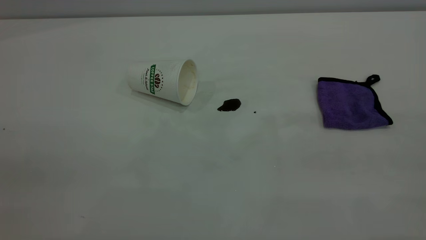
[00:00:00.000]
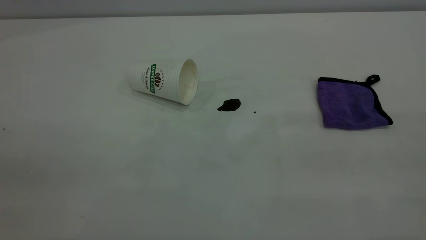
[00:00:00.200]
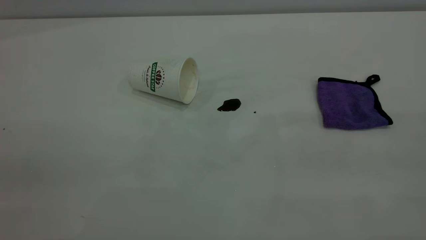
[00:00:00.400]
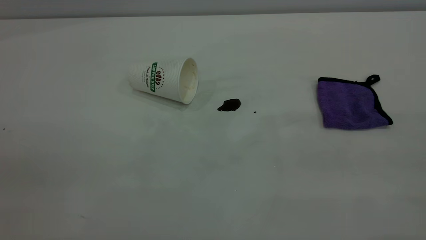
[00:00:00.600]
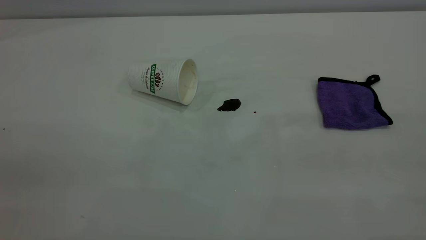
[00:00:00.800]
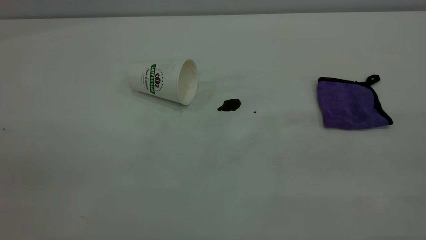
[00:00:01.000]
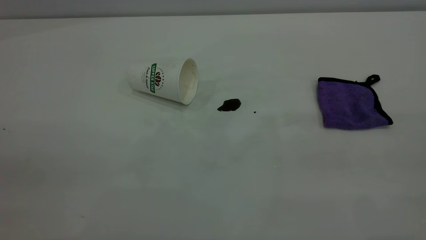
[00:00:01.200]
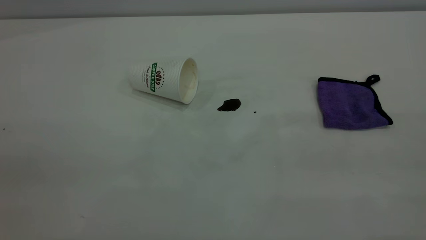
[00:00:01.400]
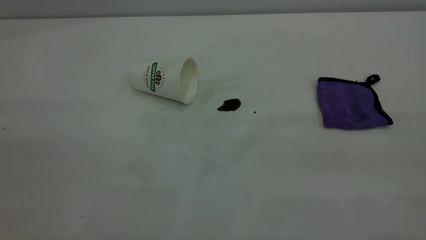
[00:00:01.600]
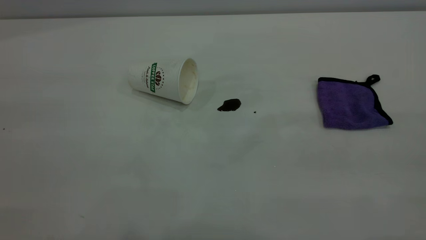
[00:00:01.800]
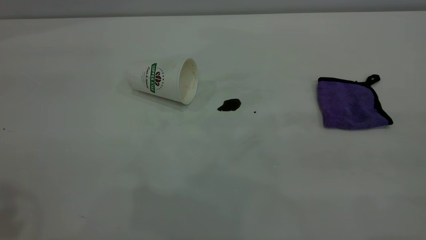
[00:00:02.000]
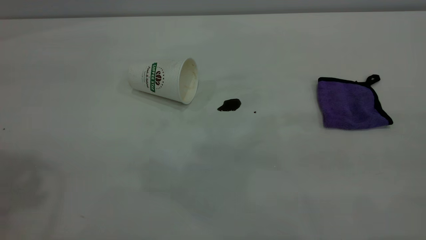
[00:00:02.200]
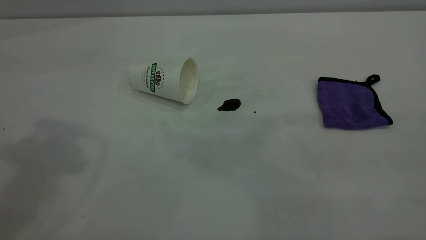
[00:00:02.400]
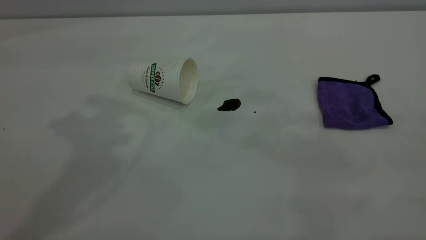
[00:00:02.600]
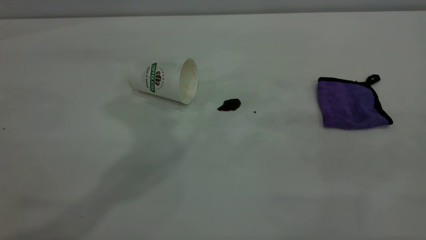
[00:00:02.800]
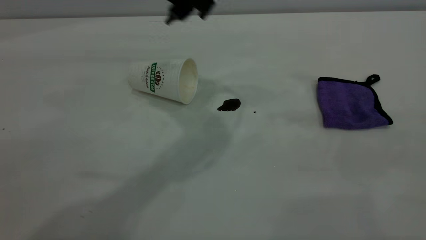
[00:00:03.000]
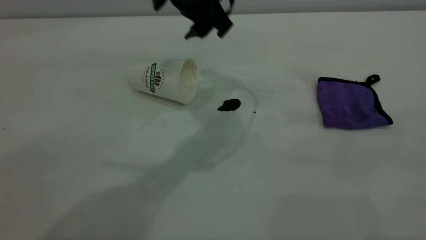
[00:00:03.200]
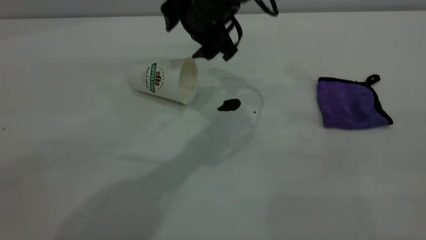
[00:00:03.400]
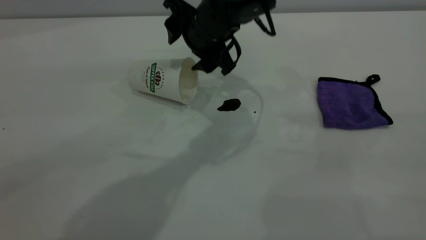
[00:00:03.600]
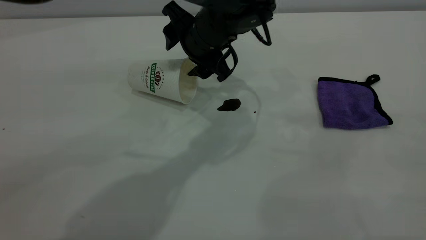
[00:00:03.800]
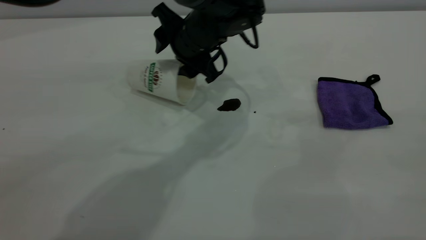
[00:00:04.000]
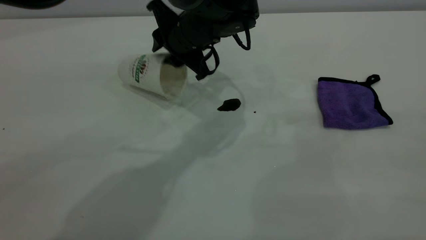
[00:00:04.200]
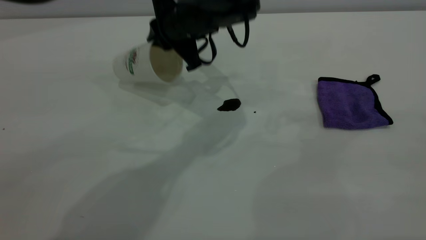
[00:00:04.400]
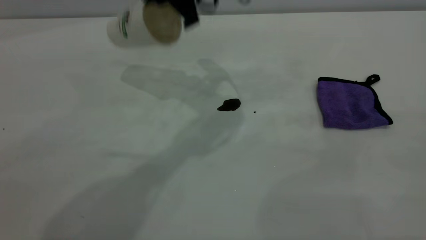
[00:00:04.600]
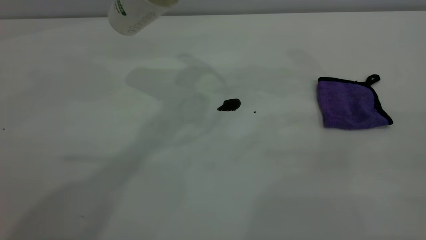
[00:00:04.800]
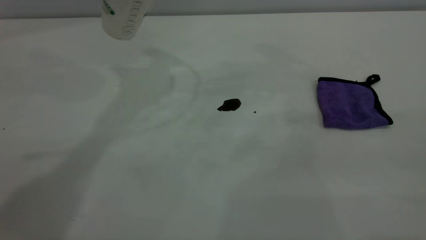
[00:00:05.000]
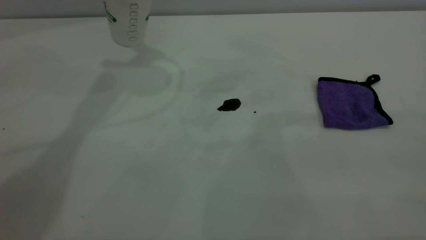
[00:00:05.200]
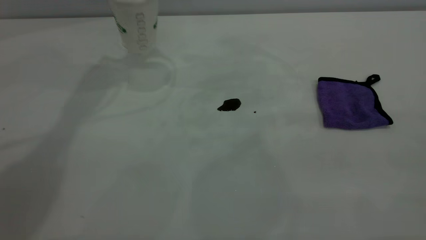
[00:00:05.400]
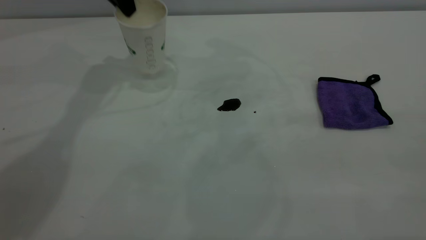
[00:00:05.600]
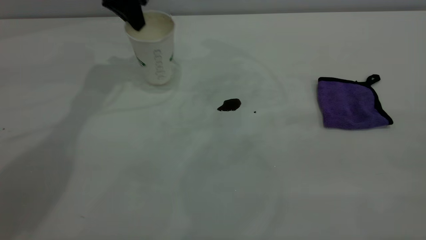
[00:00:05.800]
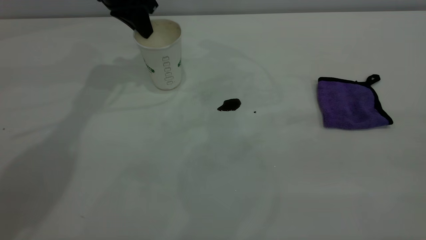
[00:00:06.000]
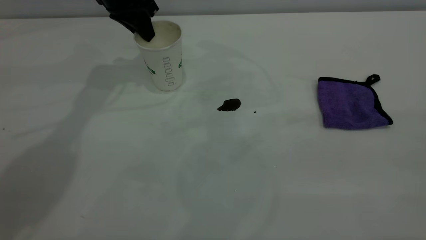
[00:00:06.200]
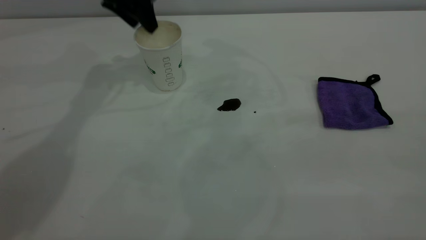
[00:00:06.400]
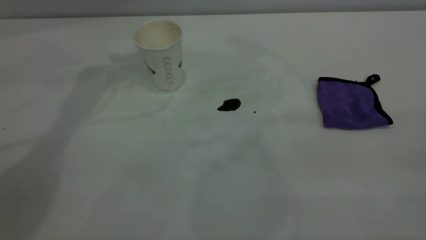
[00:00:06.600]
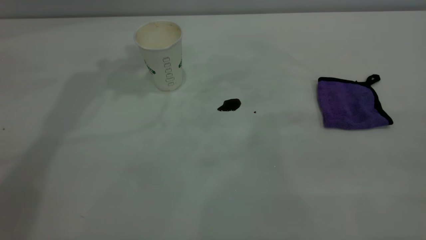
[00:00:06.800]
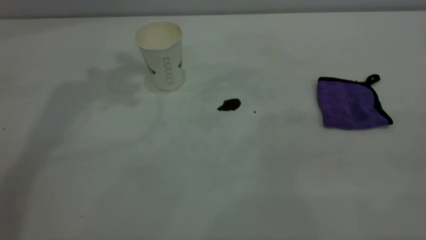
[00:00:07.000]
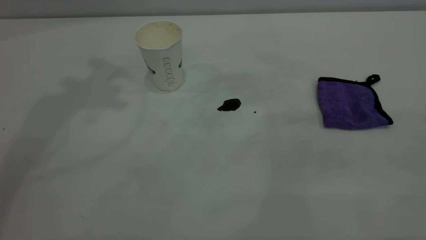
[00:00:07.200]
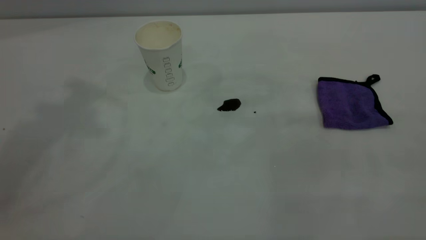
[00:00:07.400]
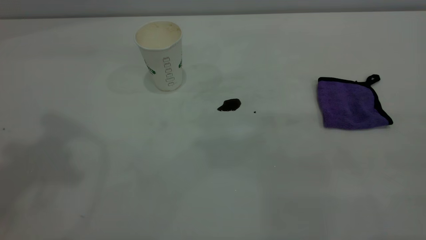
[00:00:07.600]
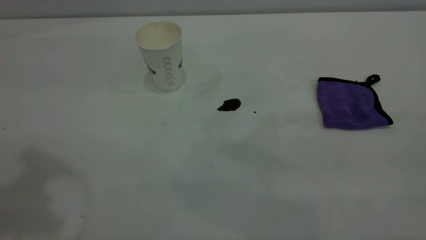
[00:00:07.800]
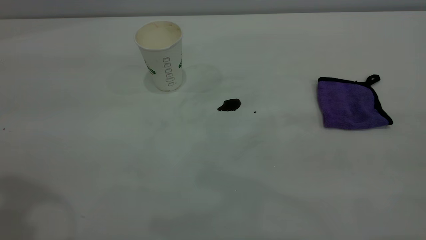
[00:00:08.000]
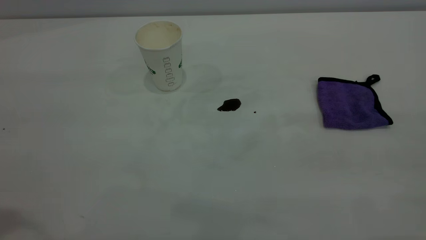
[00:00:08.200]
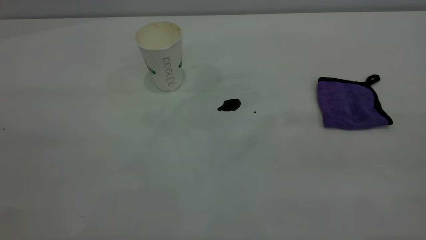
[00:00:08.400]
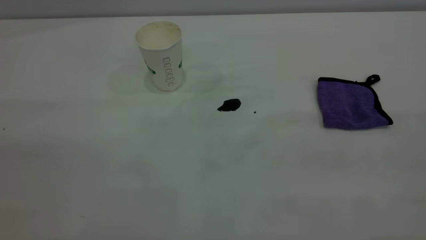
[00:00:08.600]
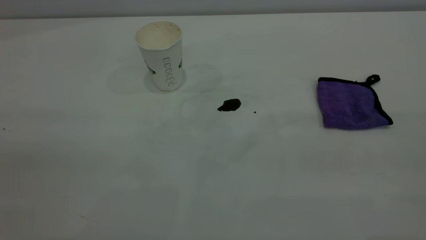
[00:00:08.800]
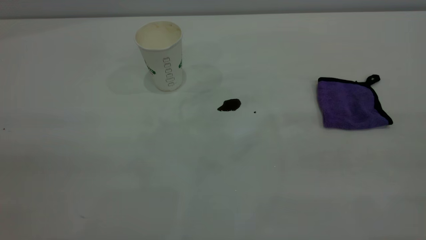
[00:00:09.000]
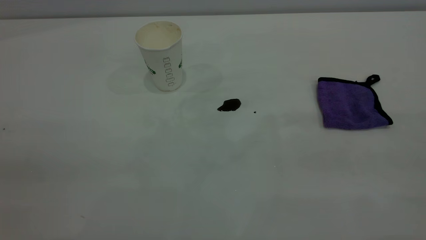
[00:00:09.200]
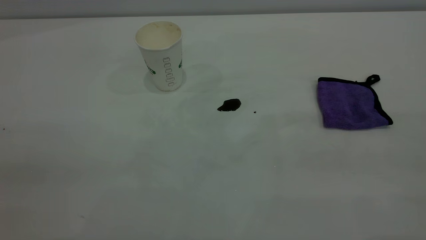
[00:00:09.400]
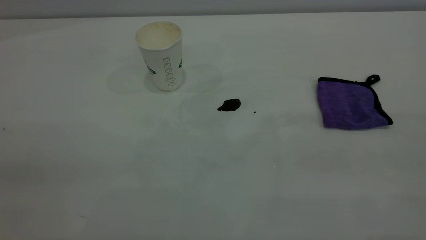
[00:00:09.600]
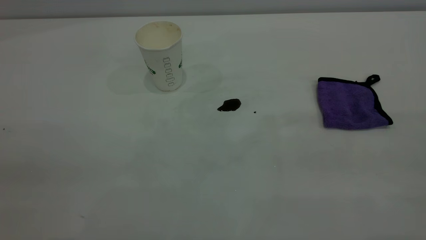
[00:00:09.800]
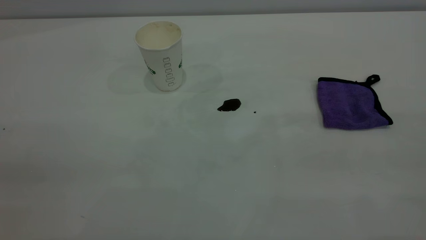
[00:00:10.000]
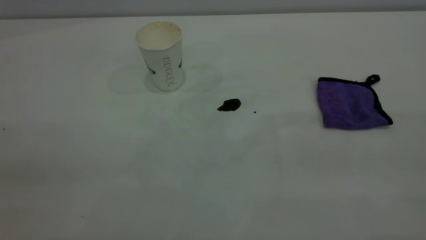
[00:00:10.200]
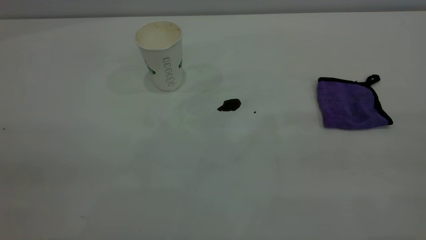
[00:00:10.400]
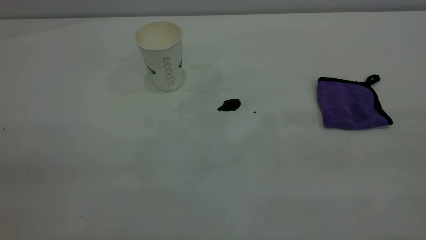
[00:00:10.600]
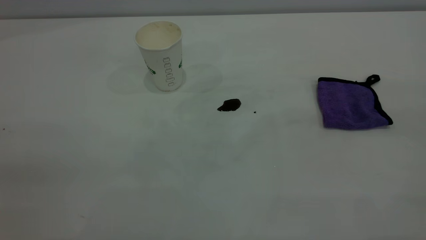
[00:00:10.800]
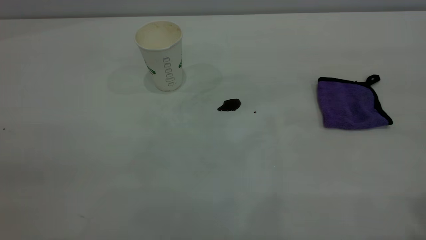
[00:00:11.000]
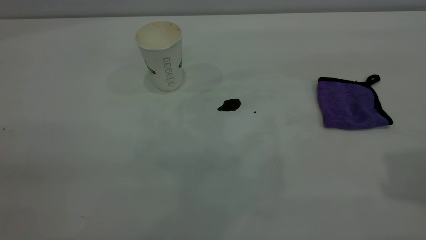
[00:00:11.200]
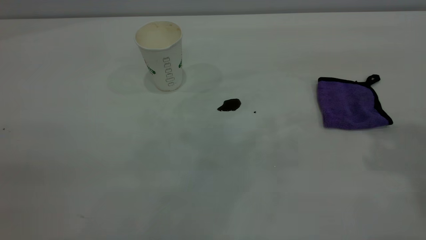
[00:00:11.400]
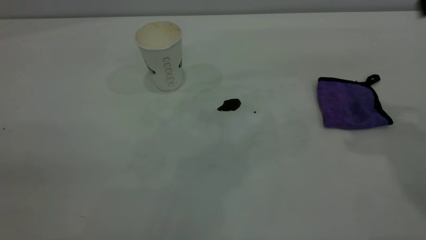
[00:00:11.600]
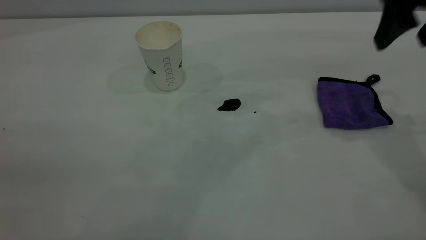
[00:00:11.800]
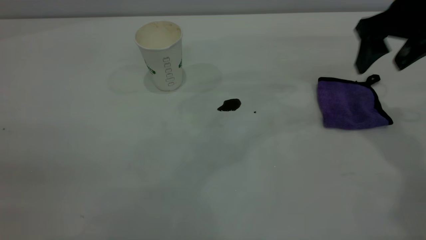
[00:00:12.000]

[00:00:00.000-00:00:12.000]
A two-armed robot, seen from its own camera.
Task of the whole recording: the left gripper pick up the fallen cup and place it upright, the right gripper grasp the purple rag and wipe the coffee stain on the table, the right gripper put the purple rag back in its original position.
Step, 00:00:00.000 to 00:00:06.400: Stand the paper cup upright.
00:00:01.600 to 00:00:03.000: The left gripper is displaced forward, to the right and downward by about 50 cm.
00:00:03.000 to 00:00:04.400: The left gripper heads downward, covering approximately 10 cm, and closes.
00:00:04.400 to 00:00:06.000: The left gripper travels to the left and forward by some 15 cm, and moves some 15 cm upward and comes back.
00:00:06.000 to 00:00:07.600: The left gripper shifts some 35 cm upward and backward, and opens and closes again.
00:00:09.000 to 00:00:10.400: Both grippers stay about where they are.
00:00:10.400 to 00:00:12.000: The right gripper is displaced forward and downward by roughly 40 cm, and opens.

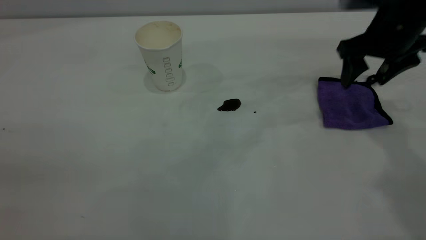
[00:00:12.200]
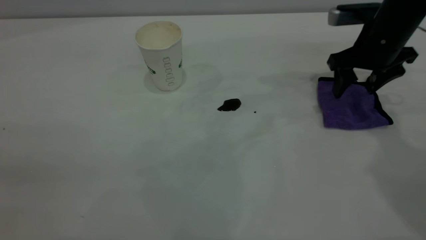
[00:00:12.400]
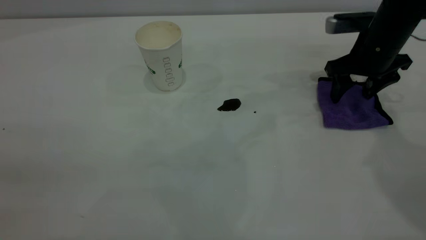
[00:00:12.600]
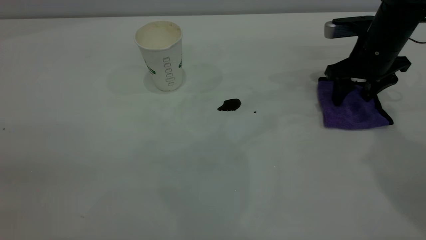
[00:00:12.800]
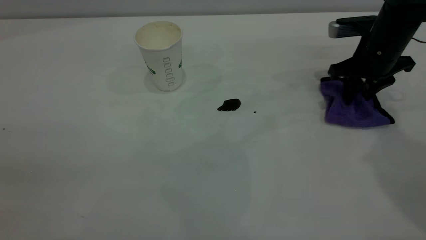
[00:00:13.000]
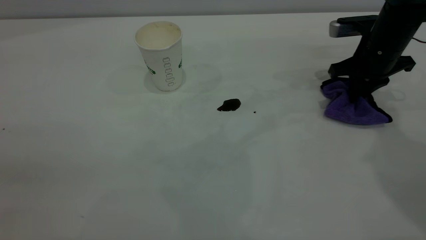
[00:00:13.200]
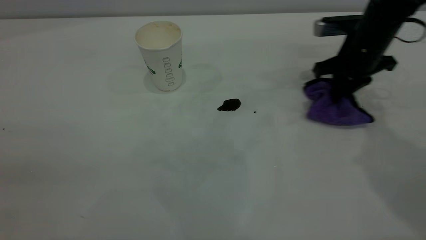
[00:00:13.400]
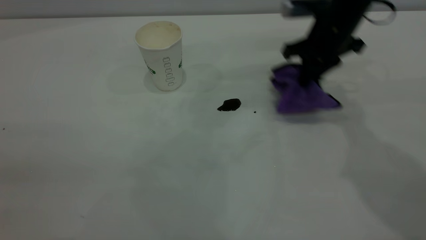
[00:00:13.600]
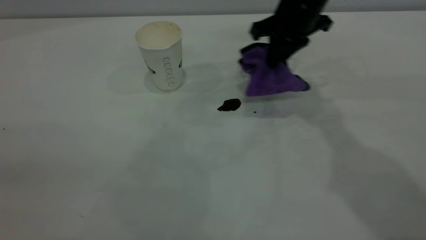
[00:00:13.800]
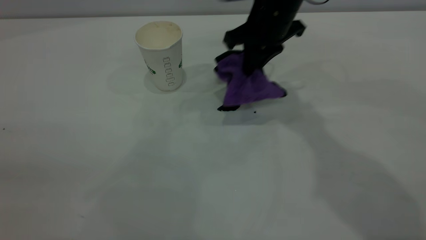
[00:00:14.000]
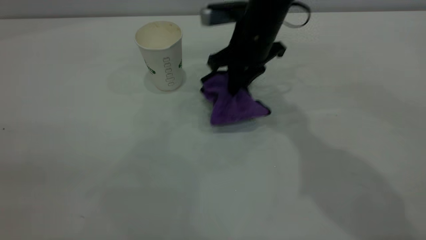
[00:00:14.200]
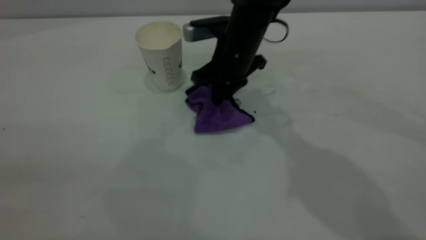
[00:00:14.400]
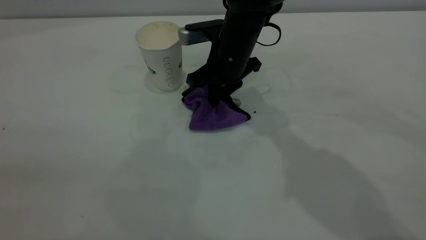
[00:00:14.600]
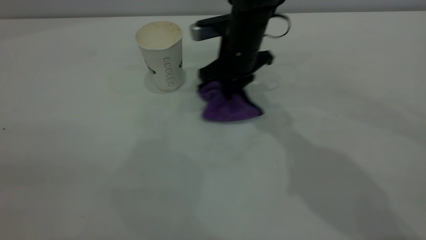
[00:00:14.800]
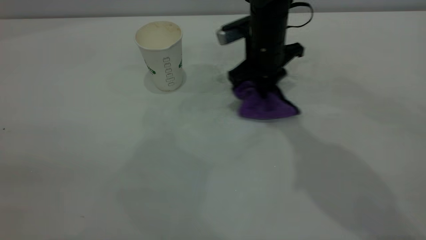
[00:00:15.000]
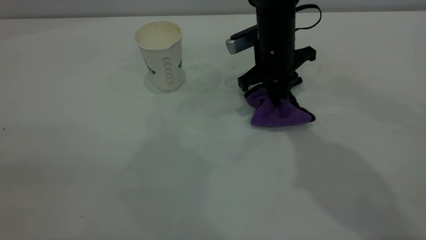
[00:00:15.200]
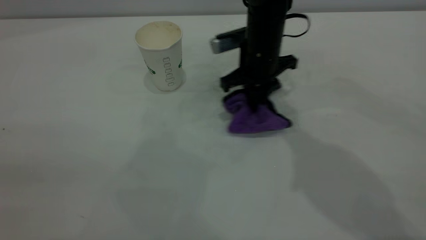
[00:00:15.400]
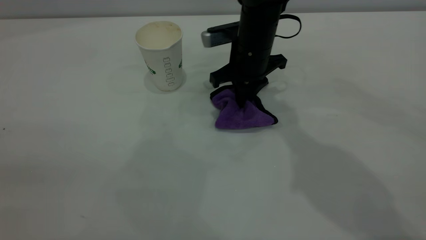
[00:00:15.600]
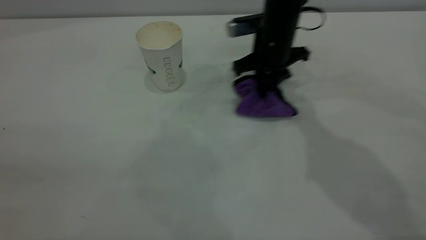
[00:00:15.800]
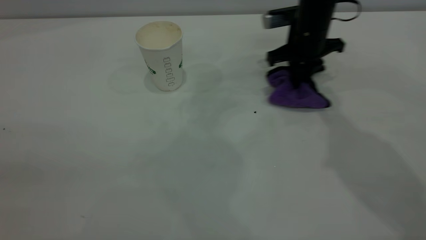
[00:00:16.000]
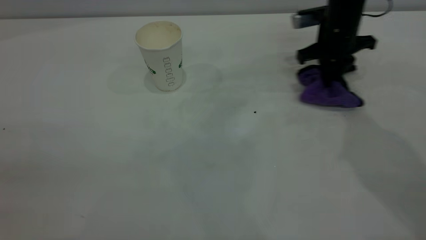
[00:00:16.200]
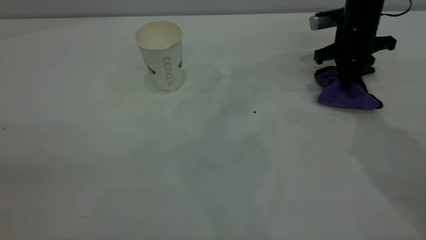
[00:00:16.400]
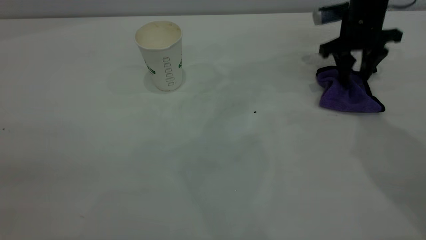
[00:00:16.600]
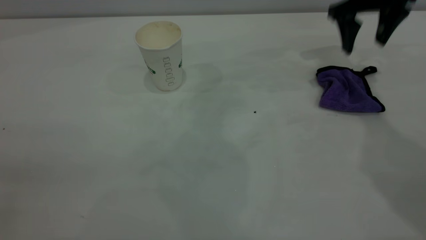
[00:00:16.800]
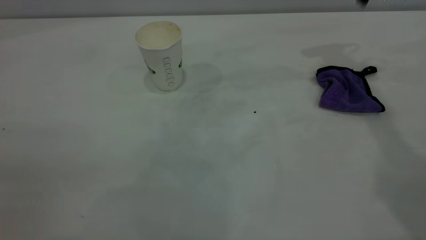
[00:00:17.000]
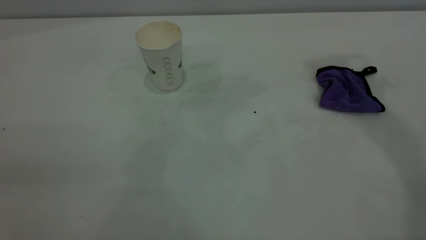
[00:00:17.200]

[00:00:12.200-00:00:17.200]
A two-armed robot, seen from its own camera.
Task of the whole recording: the left gripper pick up the fallen cup and place it upright, the right gripper grasp the purple rag and wipe the coffee stain on the table, the right gripper put the purple rag back in its original position.
Step, 00:00:12.200 to 00:00:16.600: Wipe the stains off the table with a rag.
00:00:12.200 to 00:00:13.800: The right gripper heads to the left, covering about 15 cm, and closes its fingers.
00:00:13.800 to 00:00:15.600: The right gripper travels downward and to the left by roughly 10 cm.
00:00:15.600 to 00:00:17.200: The right gripper is displaced upward and to the right by approximately 35 cm, and opens up.
